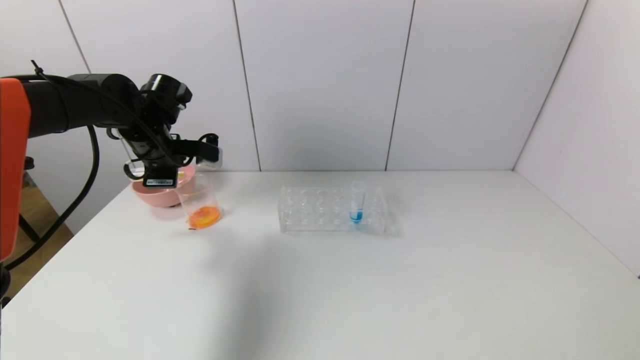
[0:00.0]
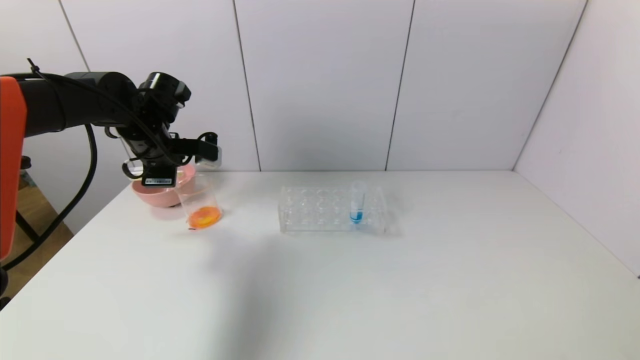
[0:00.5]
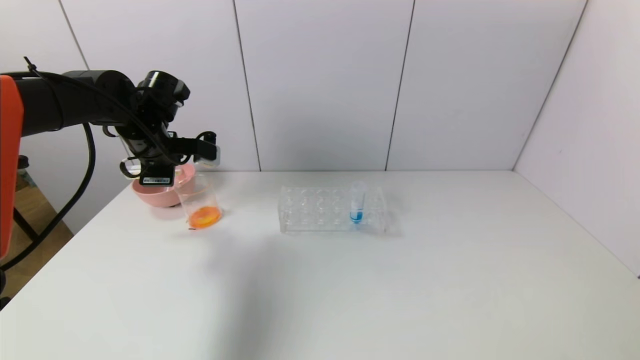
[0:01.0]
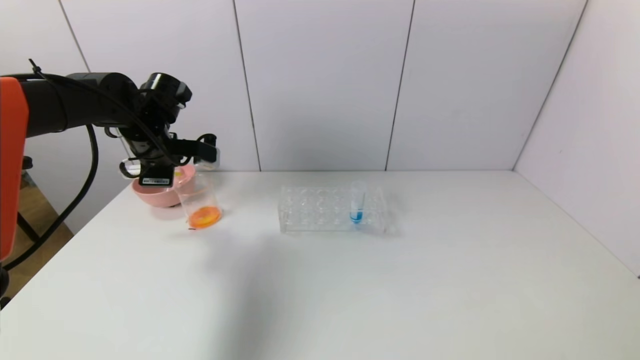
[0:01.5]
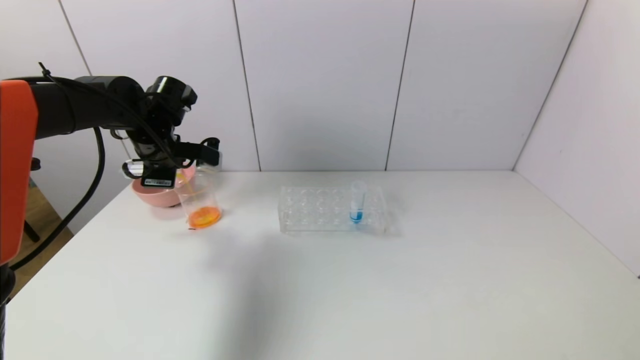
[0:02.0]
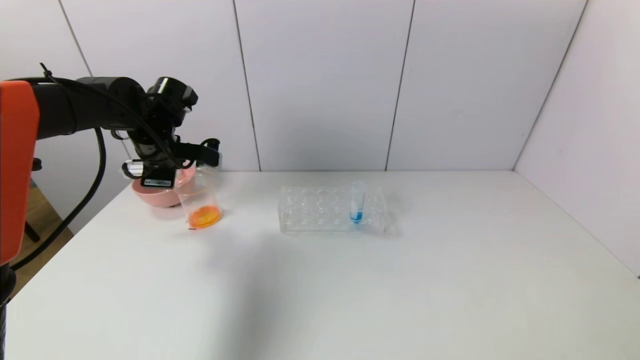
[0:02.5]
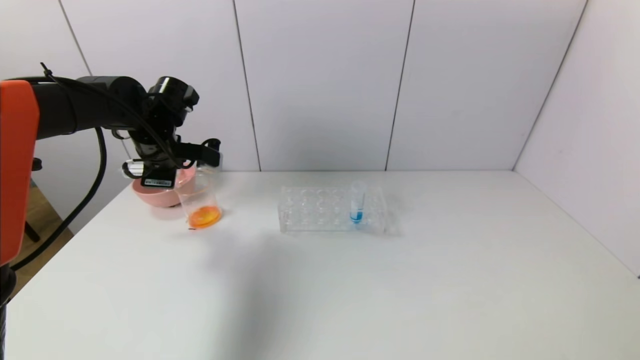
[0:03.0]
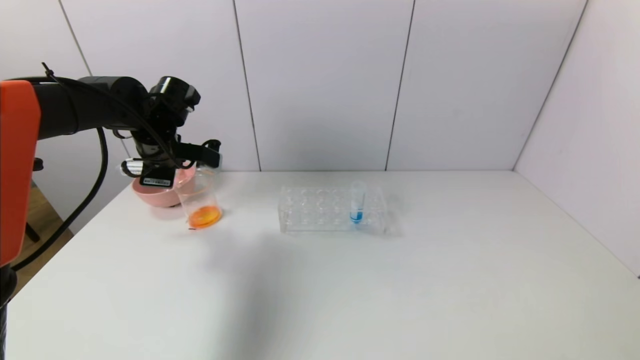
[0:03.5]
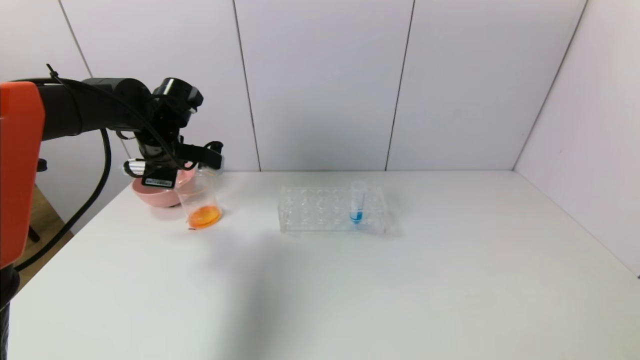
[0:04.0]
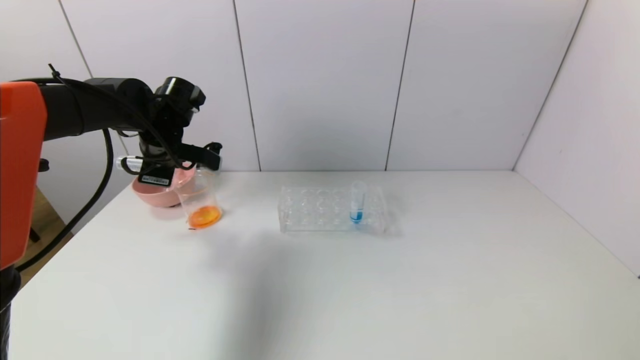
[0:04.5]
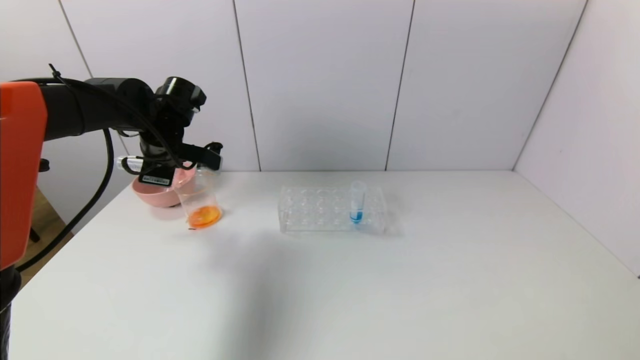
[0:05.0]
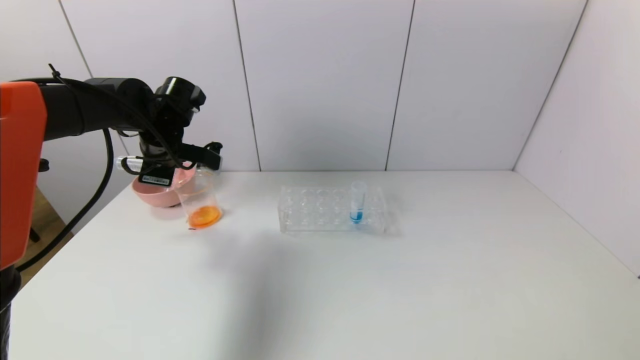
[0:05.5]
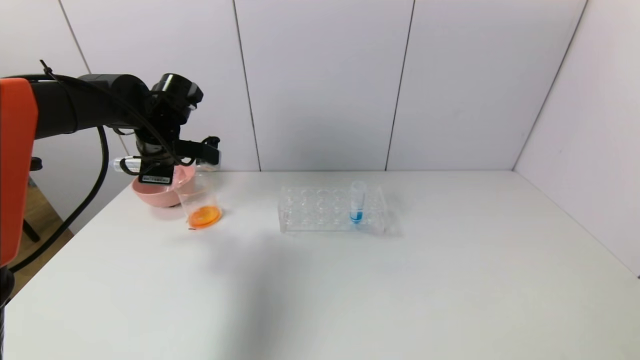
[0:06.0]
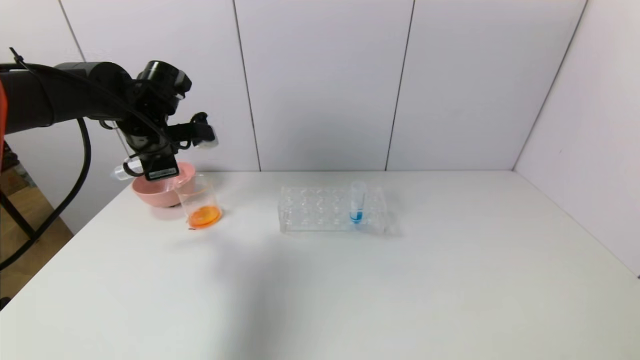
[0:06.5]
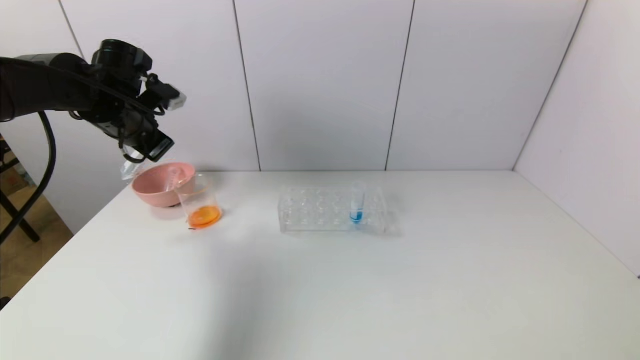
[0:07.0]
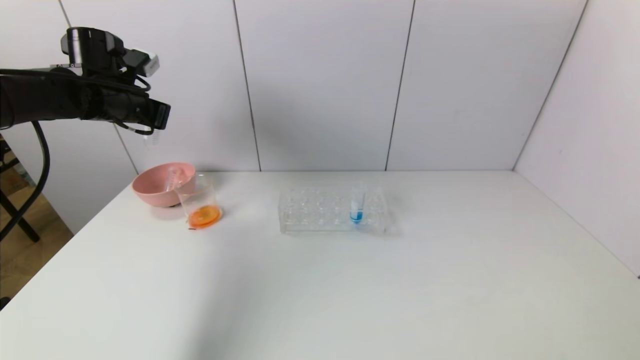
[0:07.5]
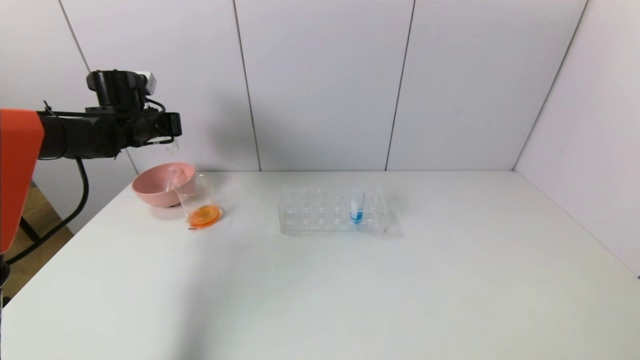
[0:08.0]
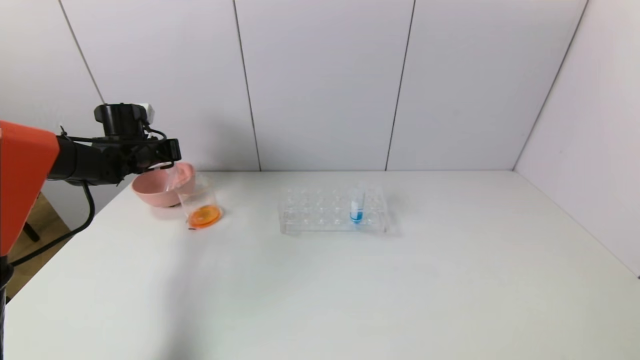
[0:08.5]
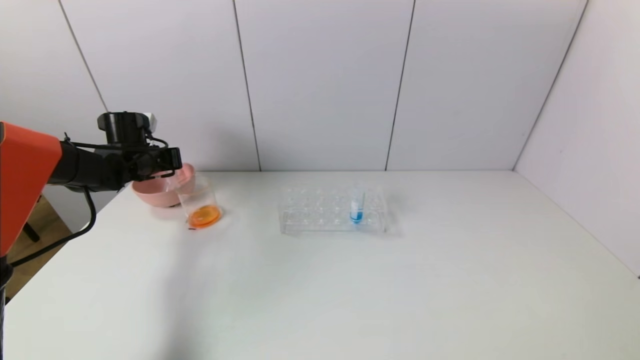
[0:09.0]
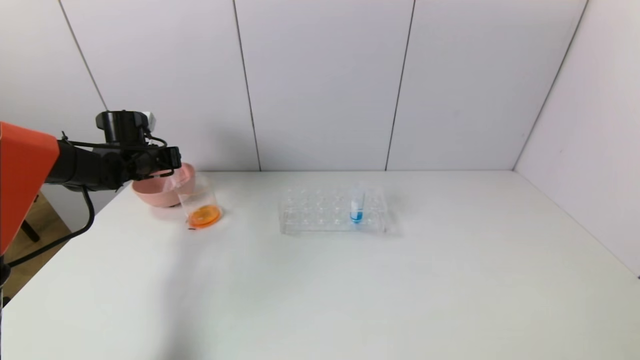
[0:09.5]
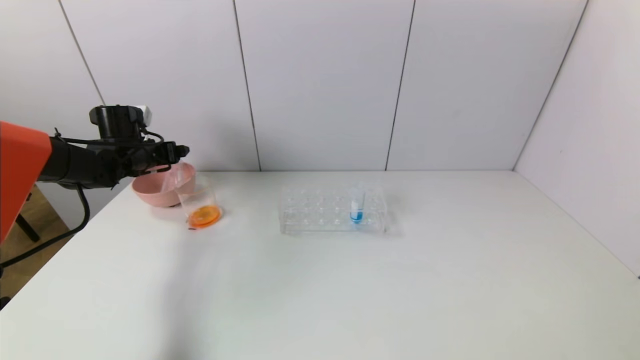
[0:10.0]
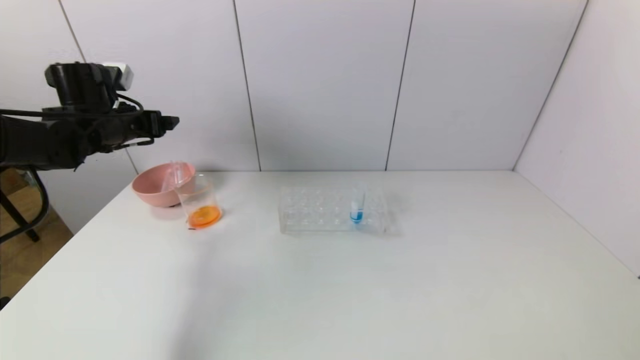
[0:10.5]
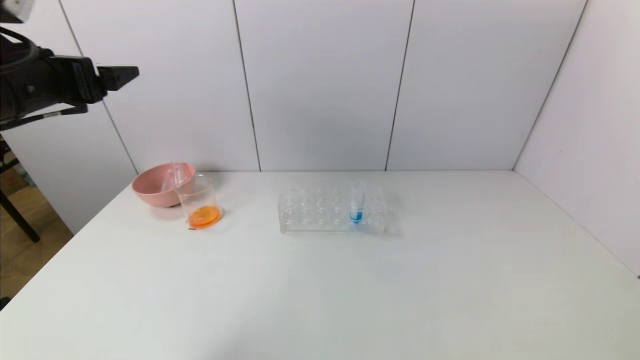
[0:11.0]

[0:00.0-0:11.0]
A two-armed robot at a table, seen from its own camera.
Task of the whole recording: pick up the test tube with yellow pigment and the test tube with red pigment by grippers and pour them into the beaker.
Step, 0:00.0 to 0:04.0: Pour the yellow reagent into the graduated cylinder with the left gripper.
Step, 0:04.5 to 0:09.5: Place the test tube into the pink bowl with the left gripper.
0:00.0 to 0:02.0: The grippers move only a little.
0:02.0 to 0:03.5: Neither gripper changes place.
0:03.5 to 0:05.5: The grippers move only a little.
0:05.5 to 0:07.5: The left gripper heads to the left and upward, covering about 10 cm.
0:07.5 to 0:09.0: The left gripper is displaced downward by some 15 cm.
0:09.0 to 0:11.0: The left gripper heads backward and upward, covering roughly 30 cm, and opens.
